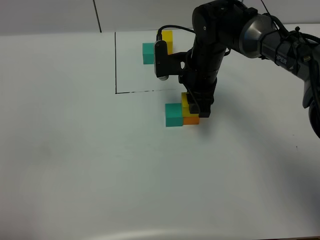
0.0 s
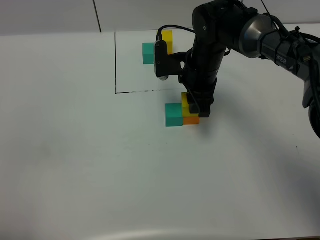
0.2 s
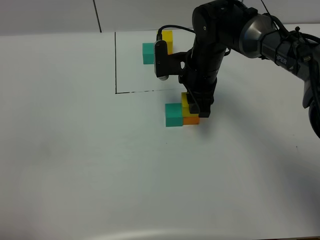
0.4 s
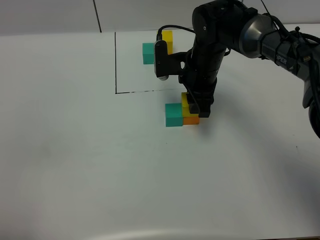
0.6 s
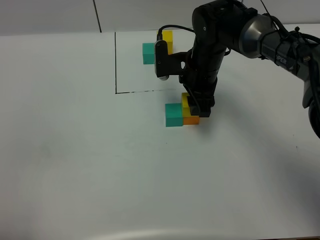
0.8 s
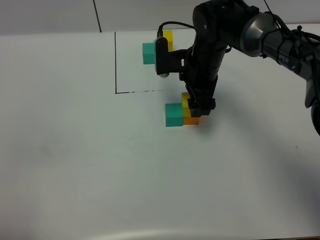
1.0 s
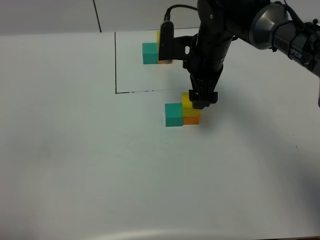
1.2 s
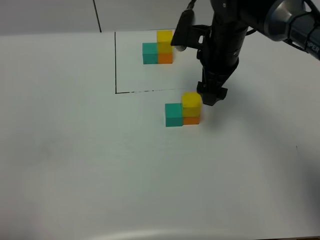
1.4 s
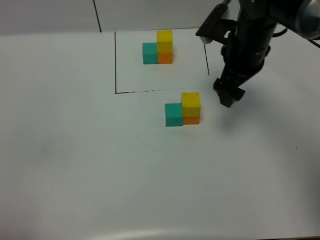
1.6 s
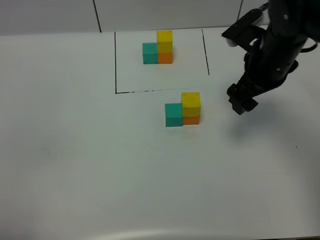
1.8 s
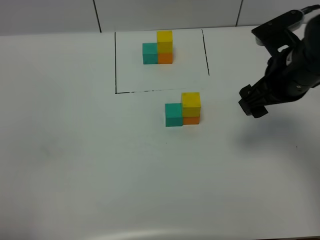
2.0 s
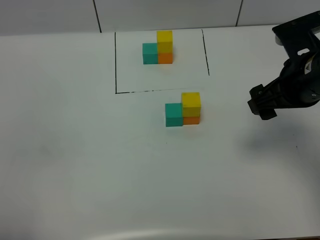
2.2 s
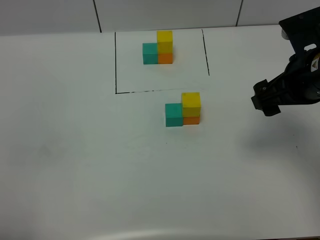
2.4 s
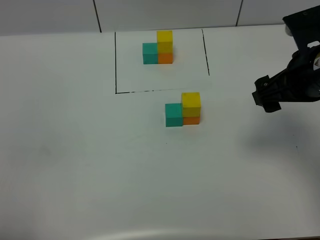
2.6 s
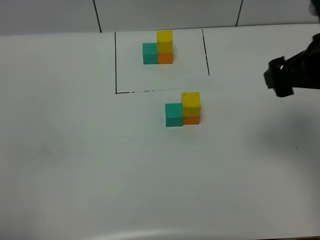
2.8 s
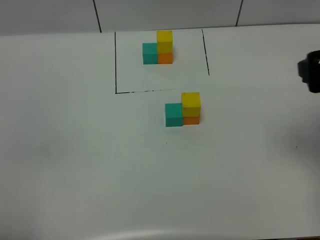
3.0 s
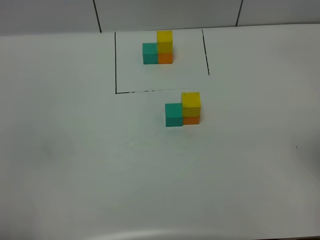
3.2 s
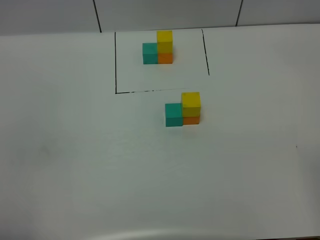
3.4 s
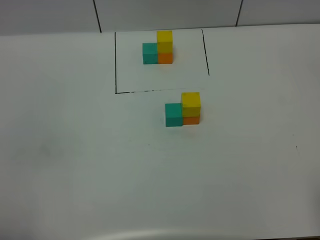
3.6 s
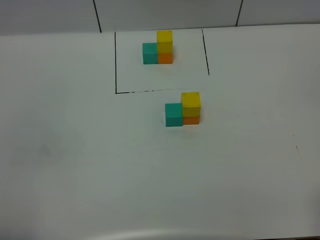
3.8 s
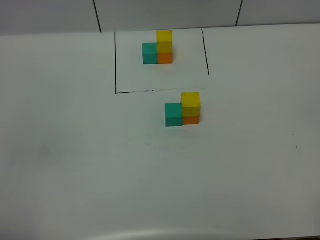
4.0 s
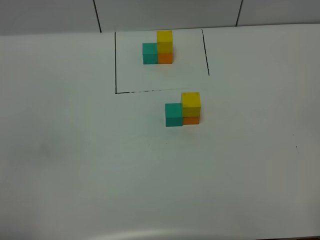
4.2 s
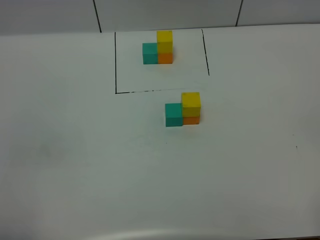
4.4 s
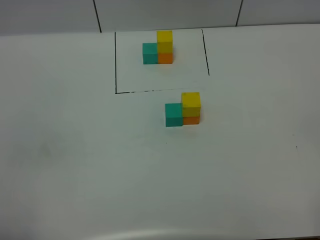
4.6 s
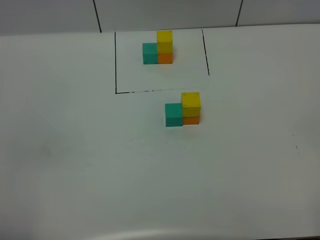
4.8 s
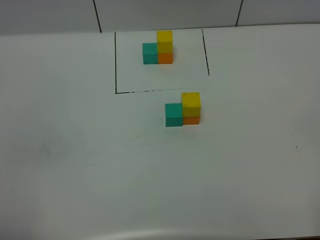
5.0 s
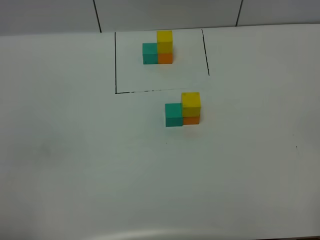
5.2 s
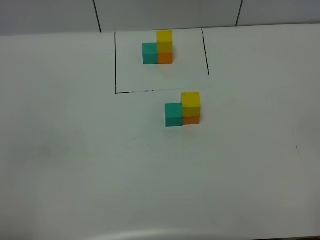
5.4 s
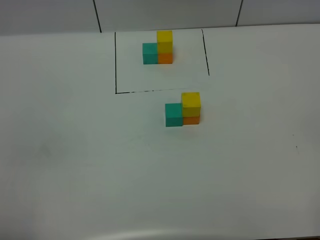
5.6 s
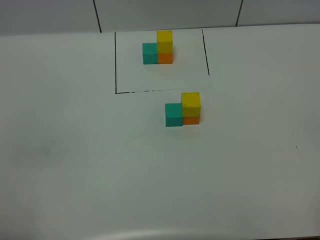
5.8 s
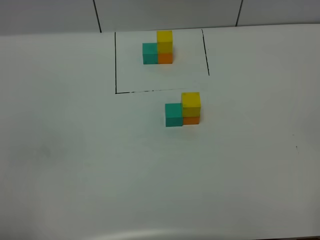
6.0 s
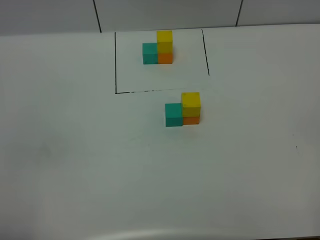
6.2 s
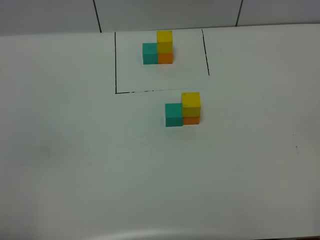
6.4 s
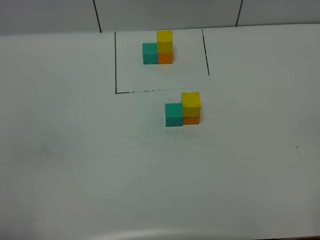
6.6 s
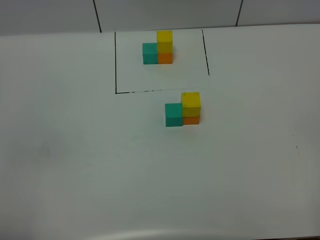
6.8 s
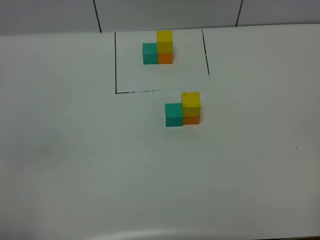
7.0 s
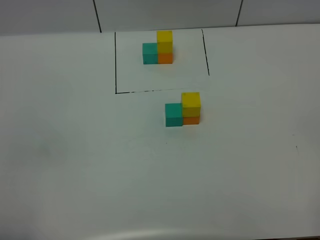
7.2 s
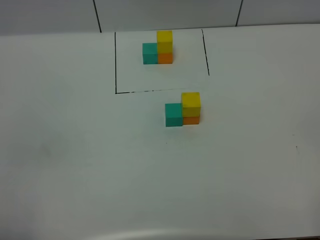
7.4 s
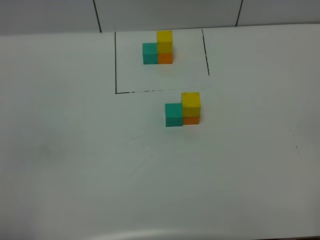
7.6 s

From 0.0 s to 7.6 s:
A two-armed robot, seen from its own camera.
Task of the whole recording: According to the building block template in front, assemble the scattered blocks together.
From 0.0 s to 1.6 s: The right gripper heads to the right and upward, covering approximately 10 cm, and opens up.
From 1.6 s to 3.0 s: The right gripper travels backward, to the right and upward by some 20 cm.
From 3.0 s to 4.6 s: The right gripper goes approximately 20 cm backward.
From 4.6 s to 7.6 s: Neither gripper changes place.
